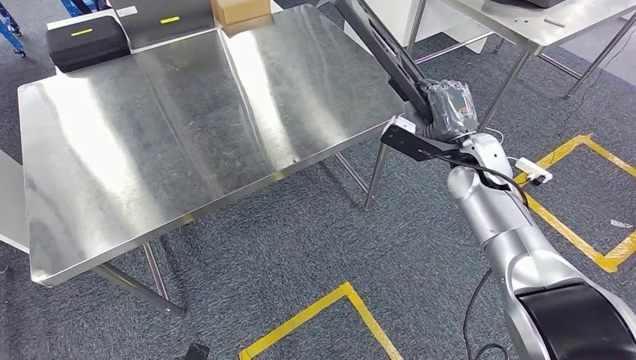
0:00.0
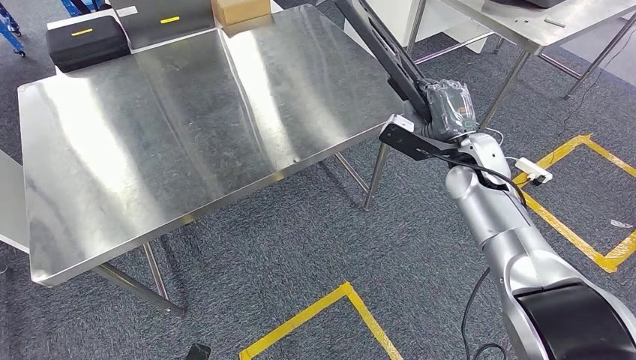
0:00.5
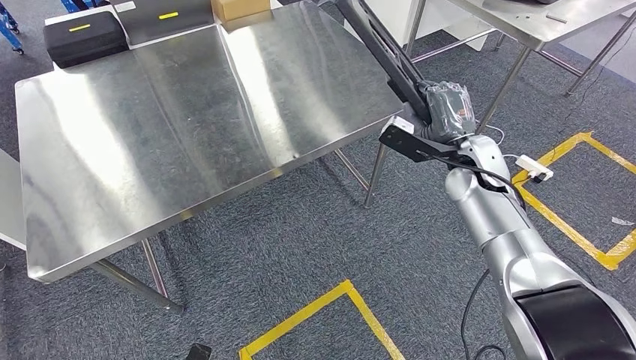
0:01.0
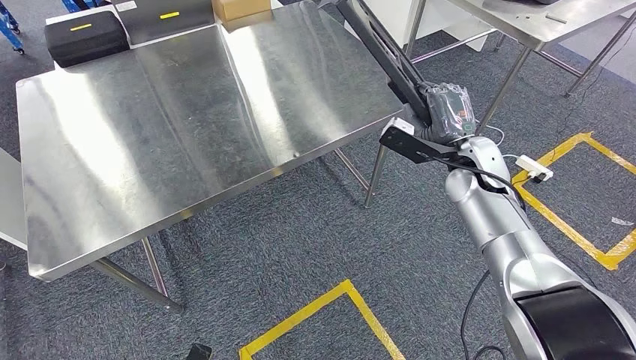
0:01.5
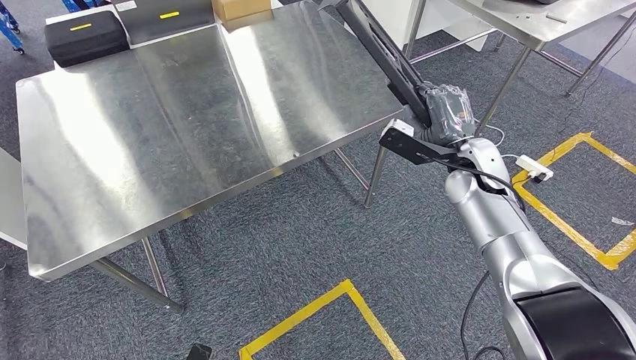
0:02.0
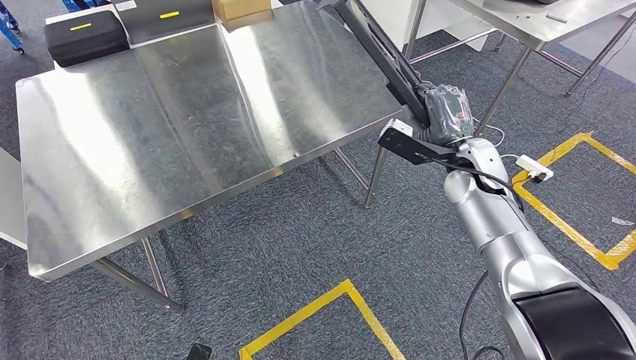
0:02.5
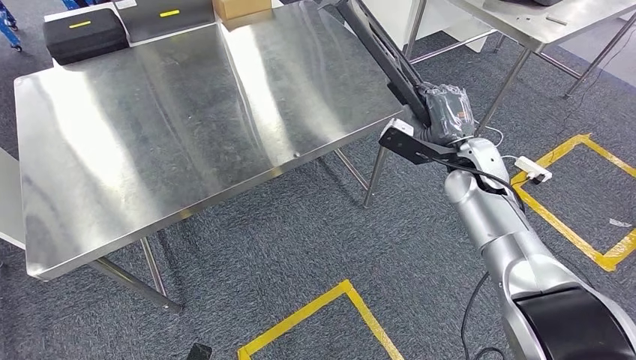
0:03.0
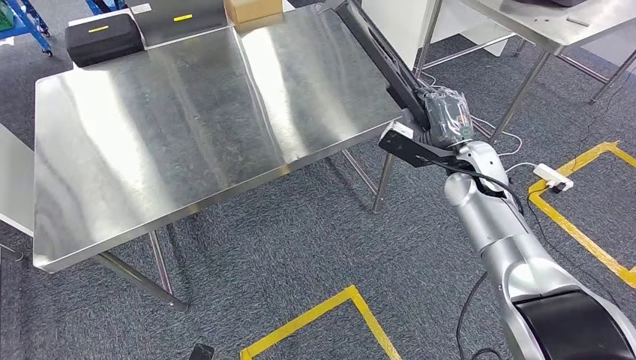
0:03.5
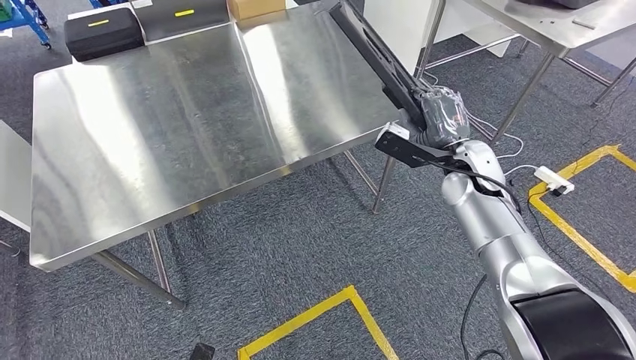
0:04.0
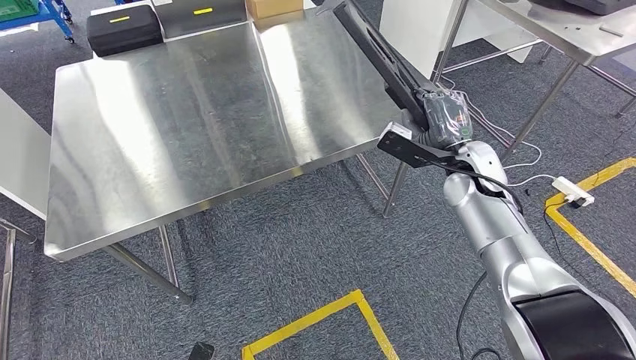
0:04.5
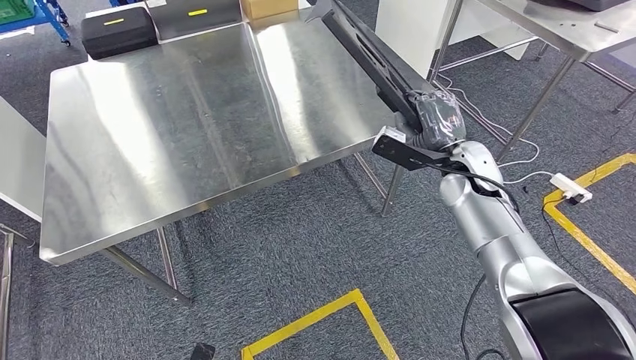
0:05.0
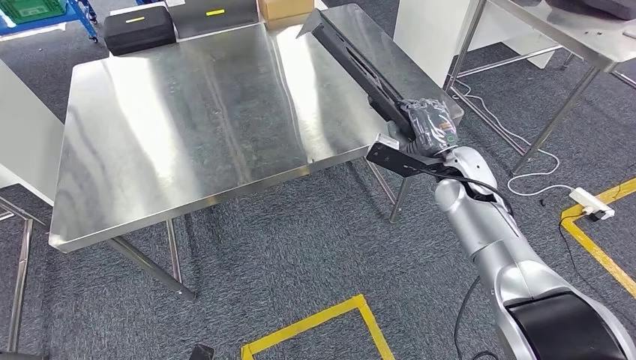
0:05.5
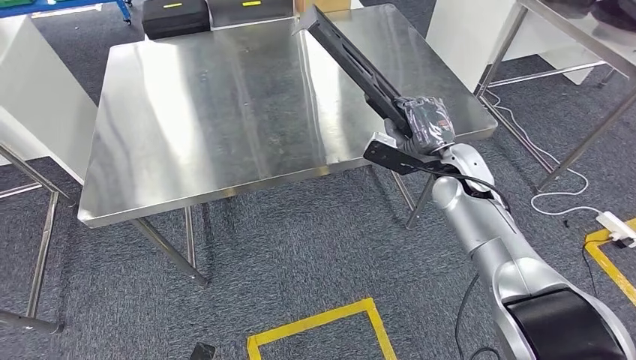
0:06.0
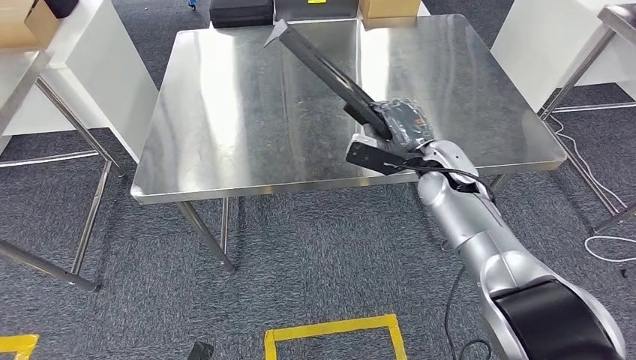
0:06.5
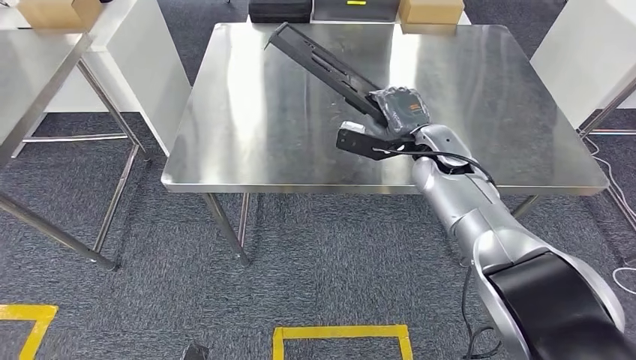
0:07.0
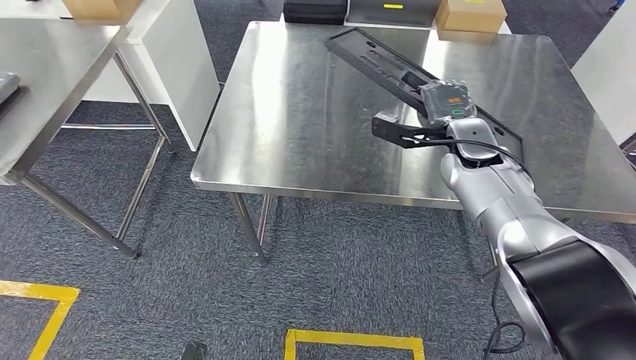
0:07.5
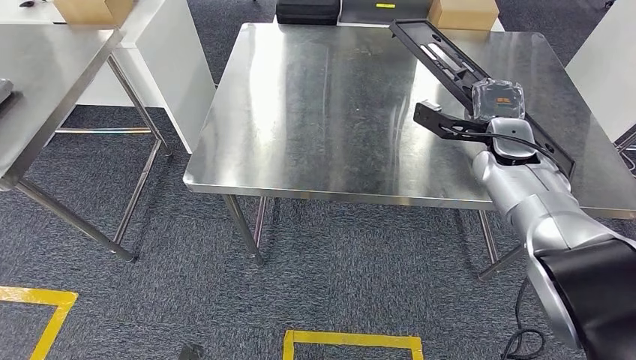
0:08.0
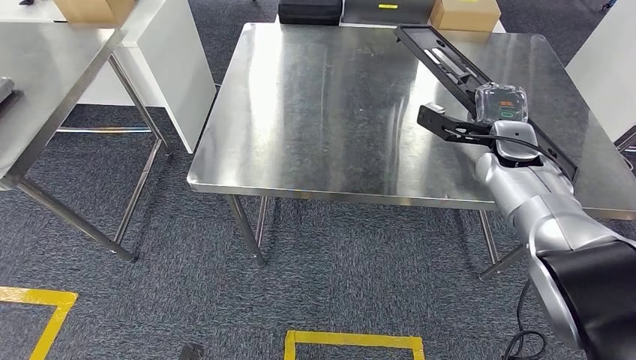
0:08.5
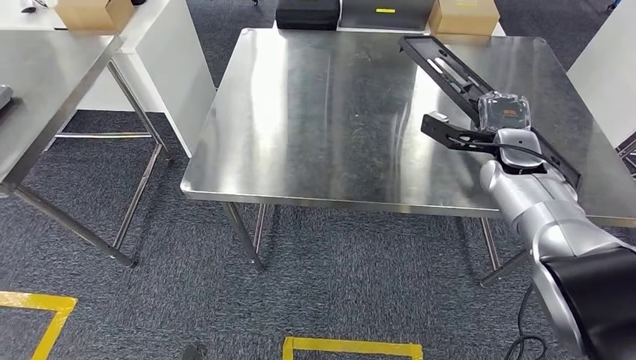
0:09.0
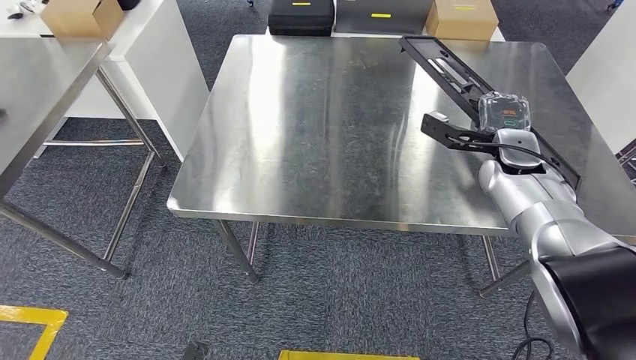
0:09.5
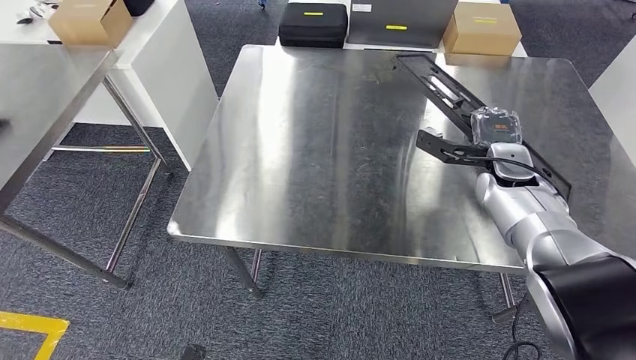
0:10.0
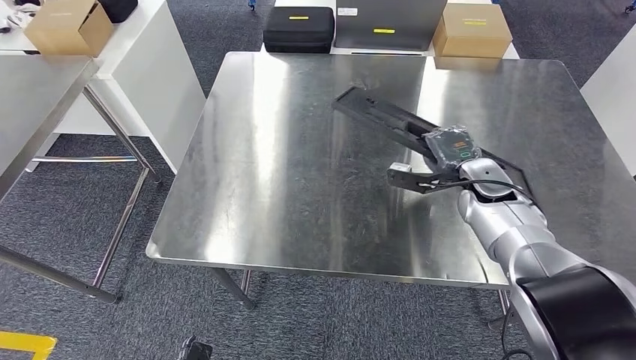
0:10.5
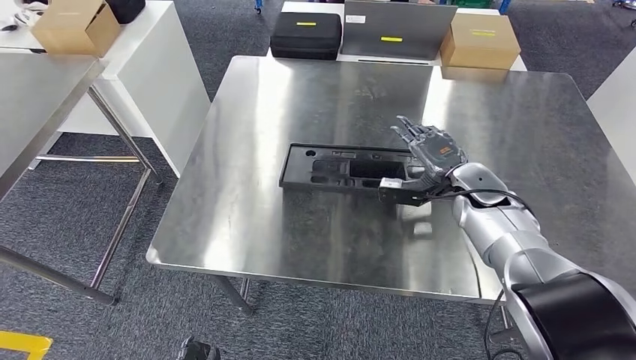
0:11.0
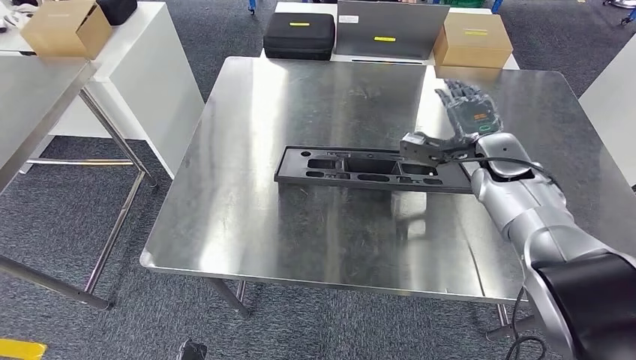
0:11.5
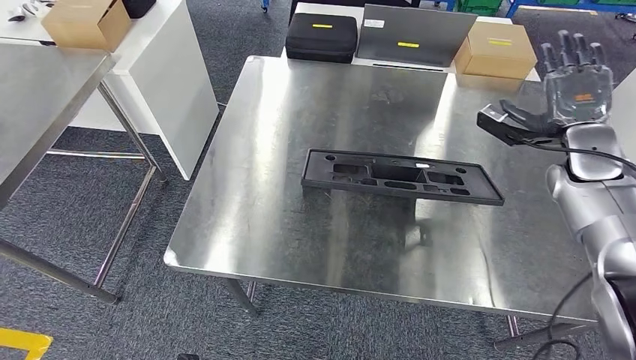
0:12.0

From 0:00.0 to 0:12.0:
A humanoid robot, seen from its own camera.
Step, from 0:00.0 to 0:11.5: Insert the large material into the corresponding slot on the workbench.
From 0:00.0 to 0:02.0: Both hands stay about where they are.

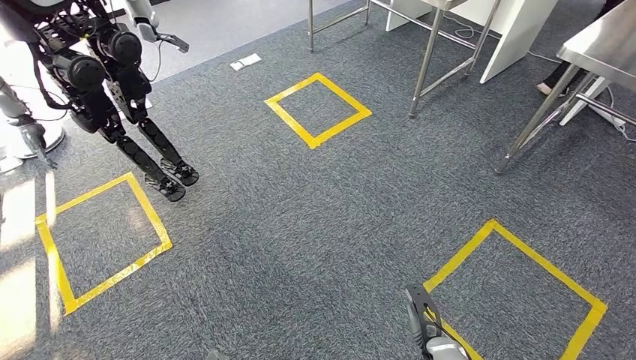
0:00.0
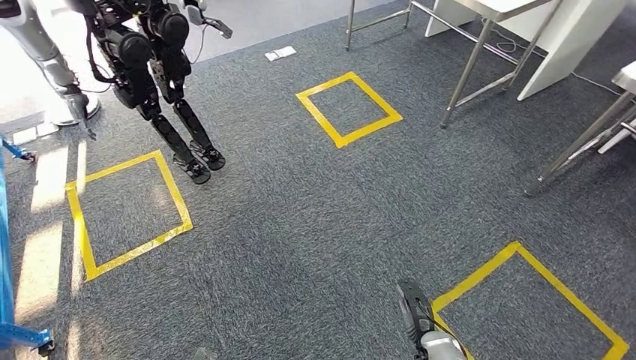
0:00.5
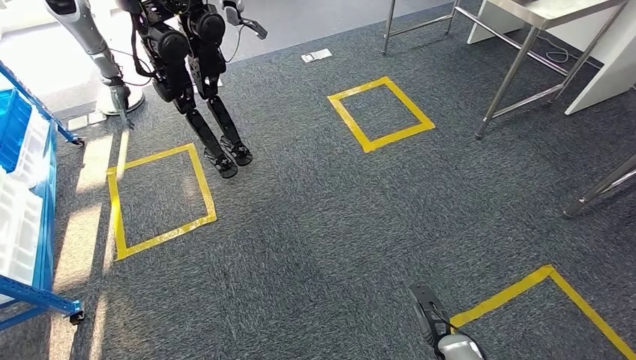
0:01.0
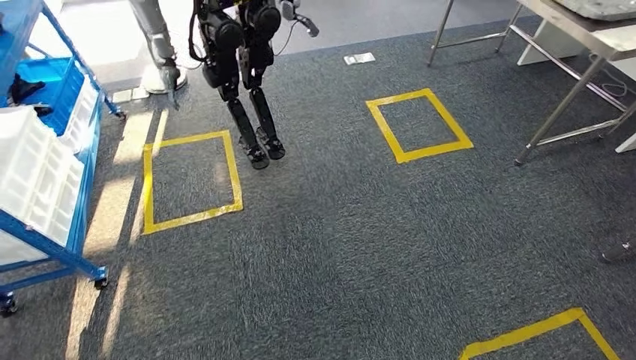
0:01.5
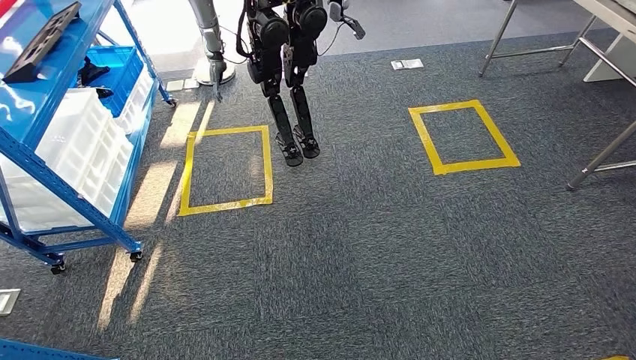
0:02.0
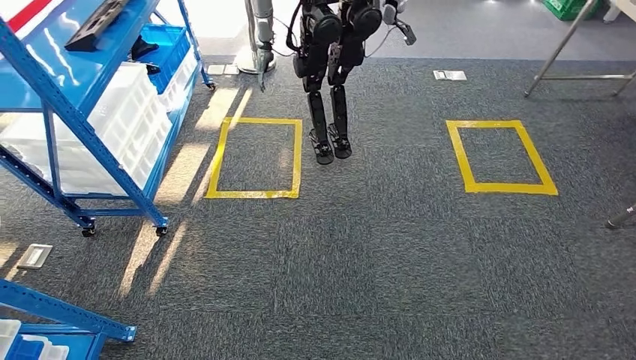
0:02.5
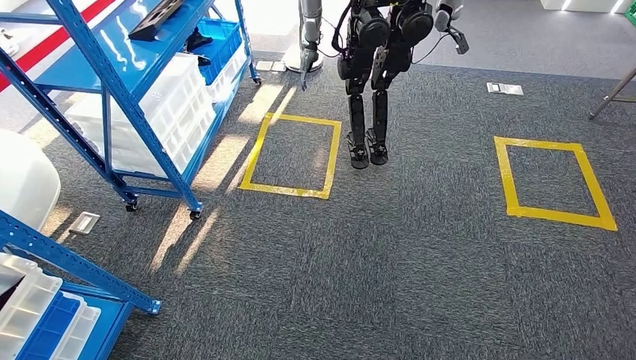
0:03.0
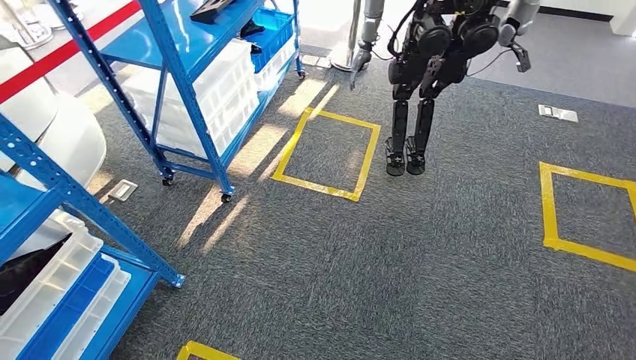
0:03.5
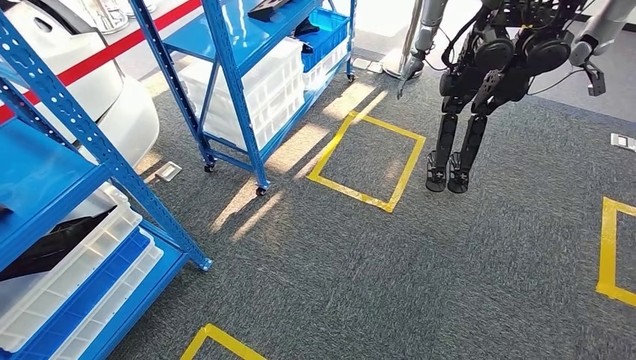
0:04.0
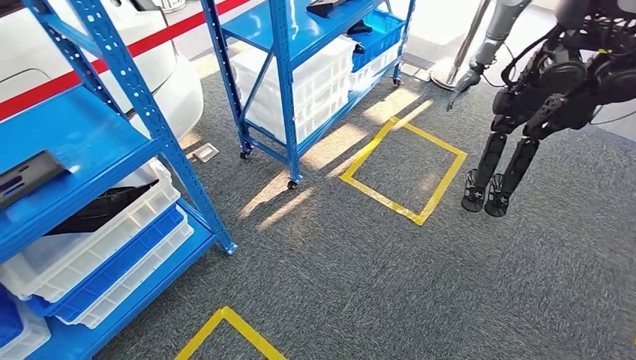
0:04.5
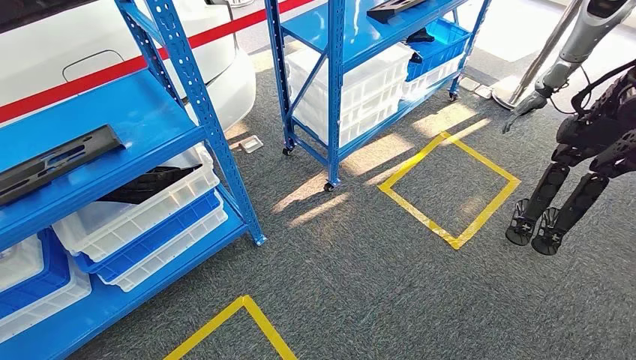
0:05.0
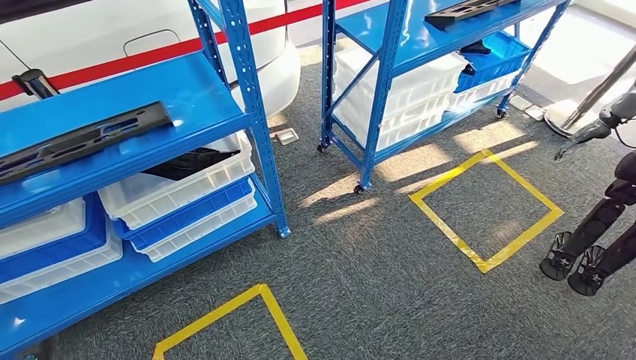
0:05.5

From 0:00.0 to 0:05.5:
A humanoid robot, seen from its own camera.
Step, from 0:00.0 to 0:05.0: Move to the initial position of the shelf.
